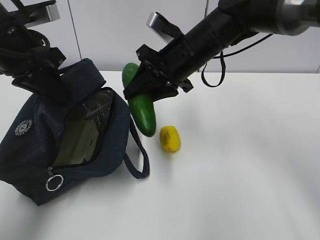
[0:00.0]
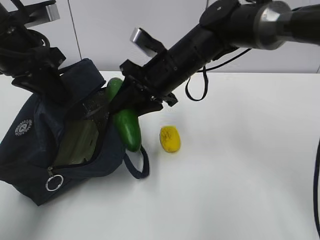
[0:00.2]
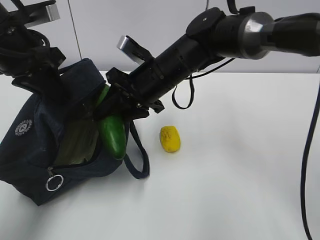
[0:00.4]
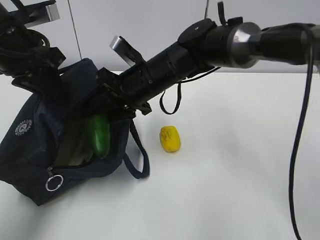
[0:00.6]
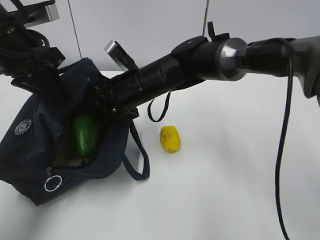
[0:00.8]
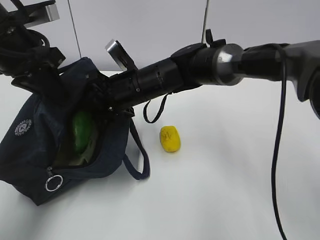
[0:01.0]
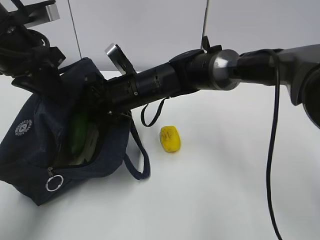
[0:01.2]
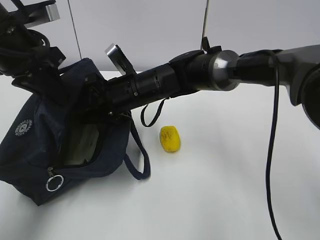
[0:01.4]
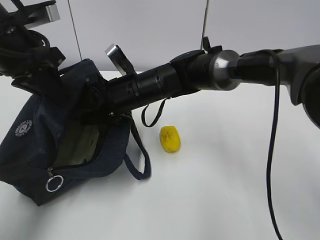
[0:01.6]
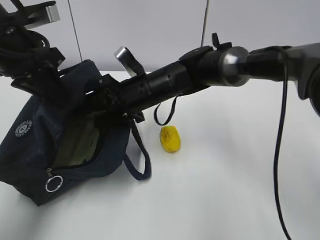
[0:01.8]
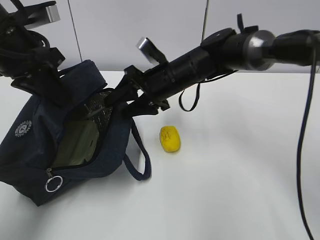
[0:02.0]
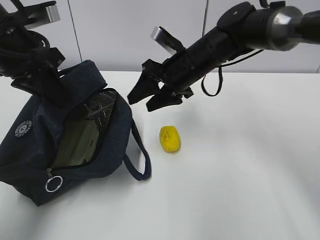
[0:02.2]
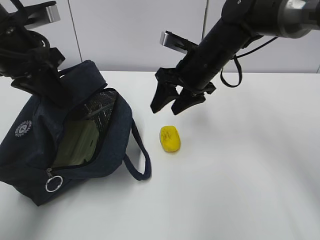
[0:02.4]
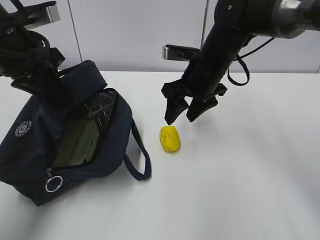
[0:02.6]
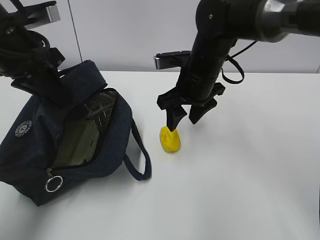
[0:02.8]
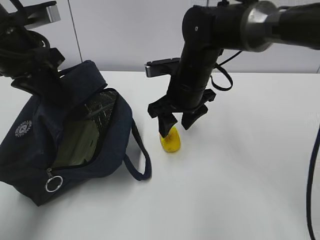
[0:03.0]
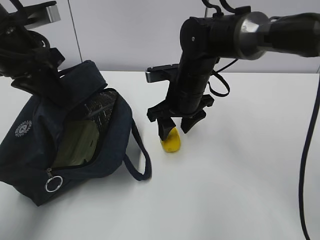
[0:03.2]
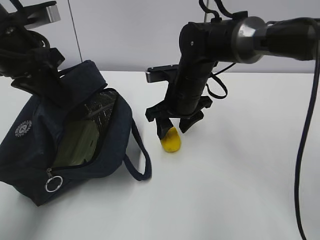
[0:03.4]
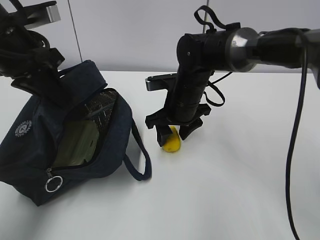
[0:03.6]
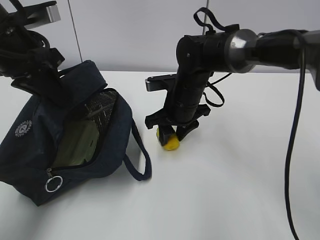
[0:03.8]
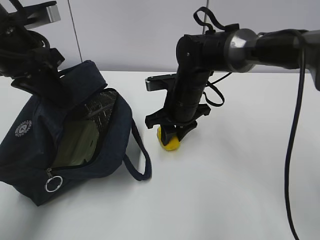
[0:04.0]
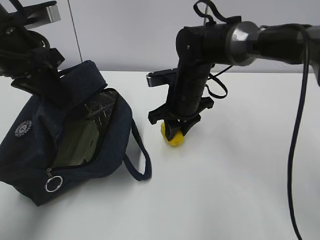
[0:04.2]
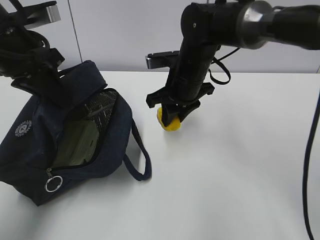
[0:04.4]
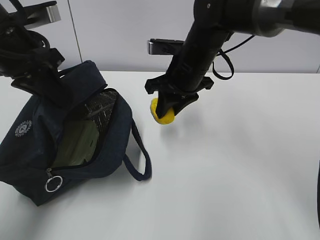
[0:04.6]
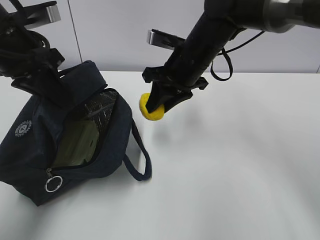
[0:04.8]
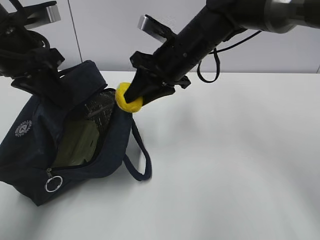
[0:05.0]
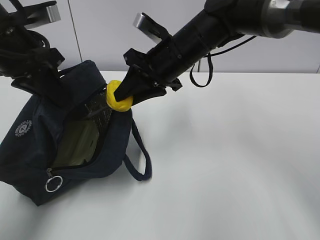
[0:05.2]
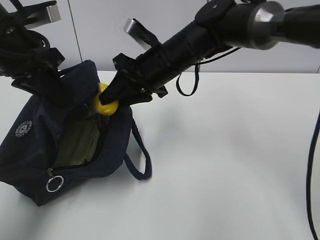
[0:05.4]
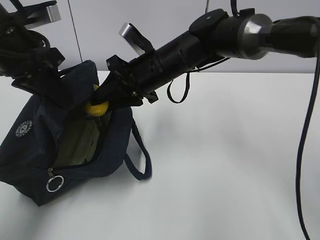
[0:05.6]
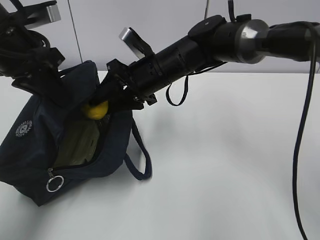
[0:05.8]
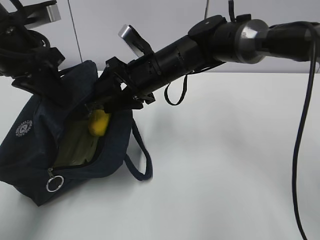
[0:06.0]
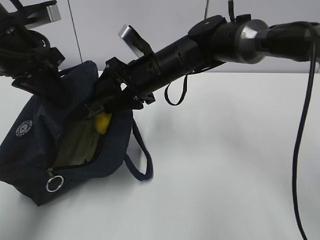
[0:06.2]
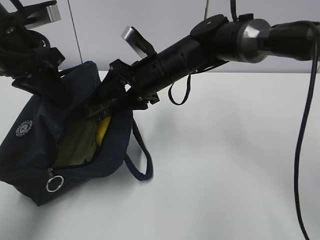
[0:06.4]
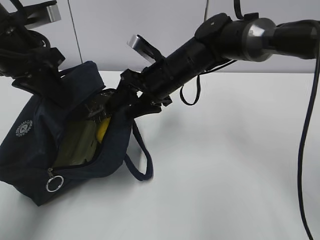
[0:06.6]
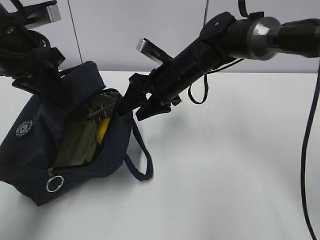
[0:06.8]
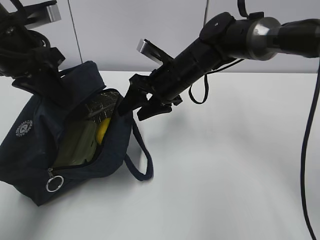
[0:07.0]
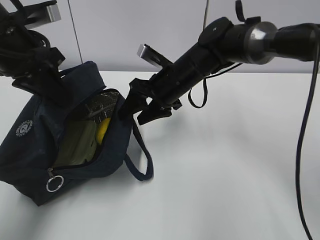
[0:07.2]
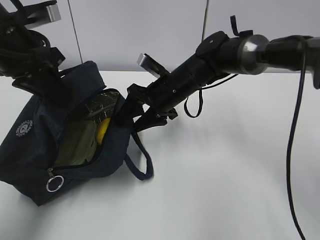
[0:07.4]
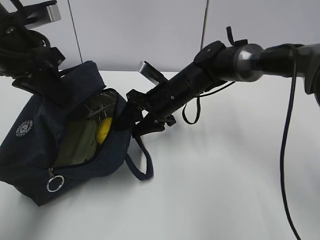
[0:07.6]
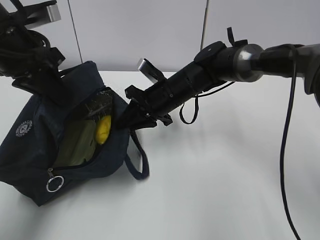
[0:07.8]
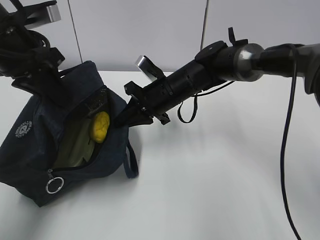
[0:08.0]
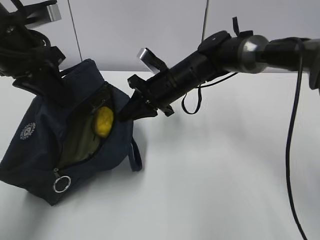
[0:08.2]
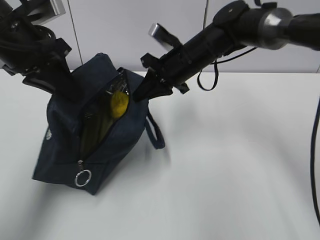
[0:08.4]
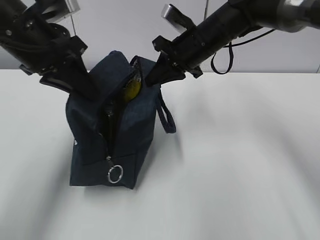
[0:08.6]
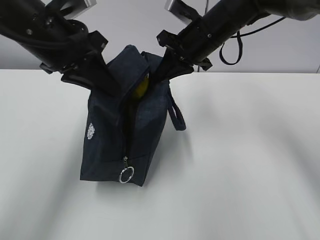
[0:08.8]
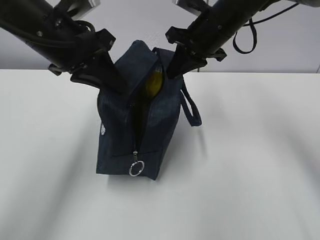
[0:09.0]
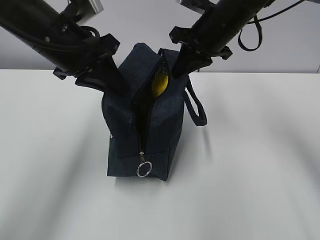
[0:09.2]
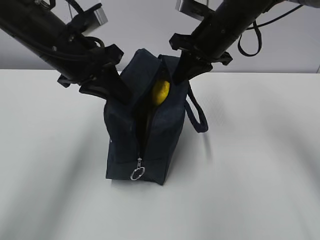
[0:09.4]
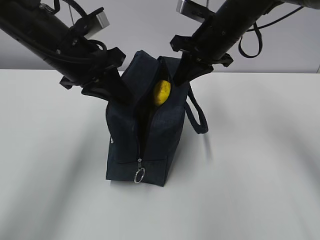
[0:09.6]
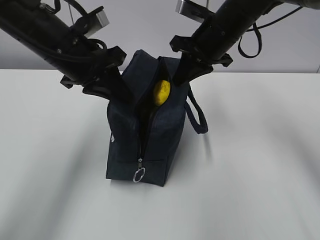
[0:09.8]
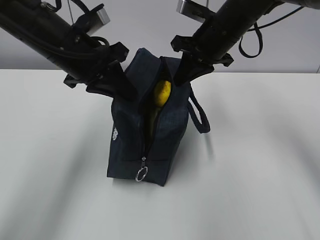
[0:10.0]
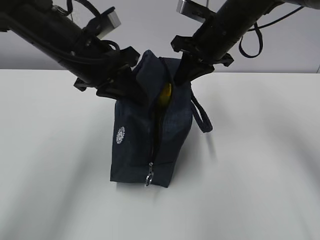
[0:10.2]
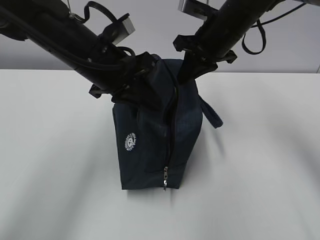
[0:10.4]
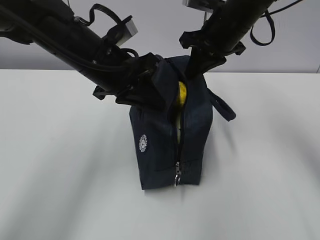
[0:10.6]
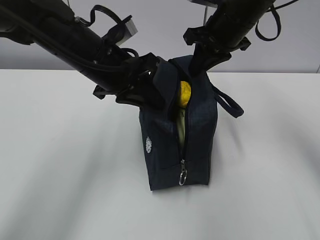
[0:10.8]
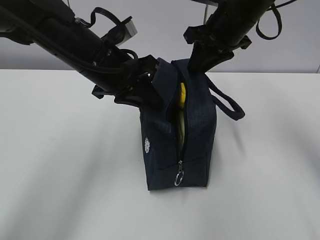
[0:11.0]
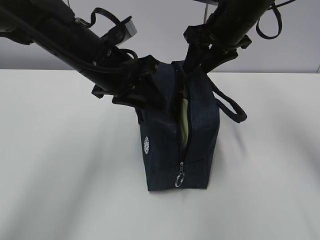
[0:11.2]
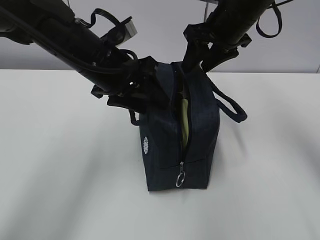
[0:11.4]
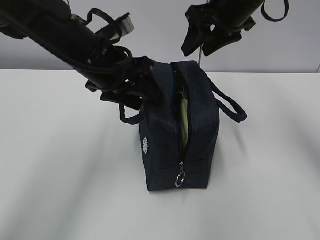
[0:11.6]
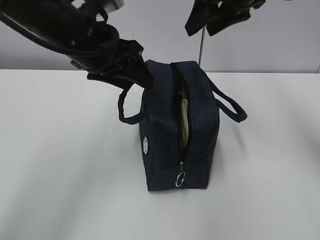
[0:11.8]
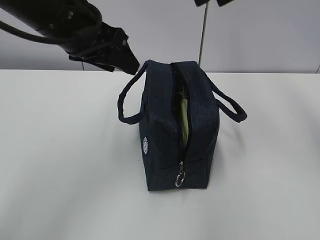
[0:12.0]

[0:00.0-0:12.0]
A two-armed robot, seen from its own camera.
Step, 0:01.6 to 0:02.4: Grab the lunch bag with your right hand.
Step, 0:02.6 to 0:05.2: Move the lunch bag to the right.
0:00.0 to 0:01.6: The right gripper goes approximately 10 cm to the left and downward.
0:01.6 to 0:03.0: The right gripper is displaced to the right by some 10 cm.
0:03.0 to 0:04.4: The right gripper closes up.
0:04.4 to 0:06.0: The right gripper heads to the left, covering approximately 5 cm, and opens up.
0:06.0 to 0:07.6: The right gripper goes about 5 cm downward.
0:07.6 to 0:09.0: The left gripper shifts some 5 cm to the right. Meanwhile the right gripper goes approximately 15 cm upward and to the right, and closes.
0:09.0 to 0:10.4: The left gripper ends up some 5 cm from where it was.
0:10.4 to 0:12.0: The right gripper travels upward and backward by approximately 15 cm, and opens; the left gripper is displaced upward by roughly 5 cm, and opens up.

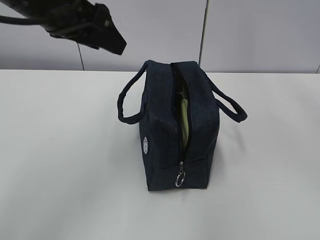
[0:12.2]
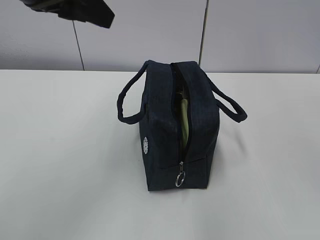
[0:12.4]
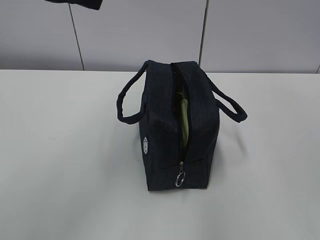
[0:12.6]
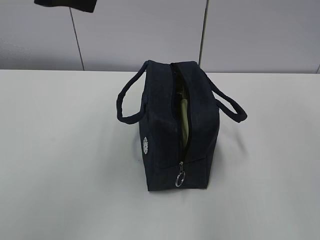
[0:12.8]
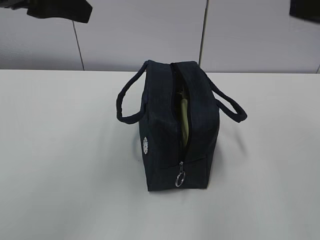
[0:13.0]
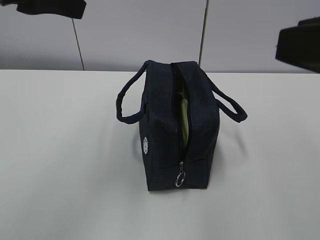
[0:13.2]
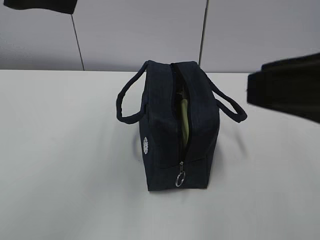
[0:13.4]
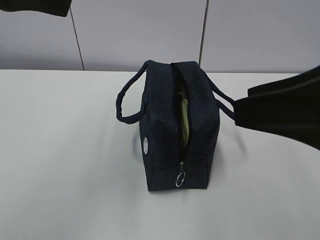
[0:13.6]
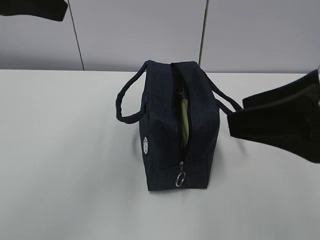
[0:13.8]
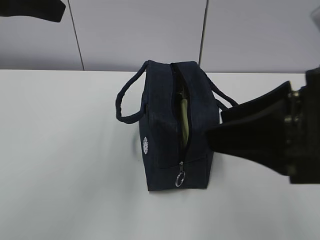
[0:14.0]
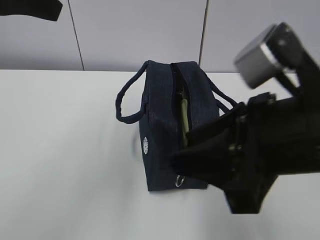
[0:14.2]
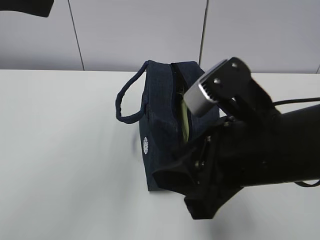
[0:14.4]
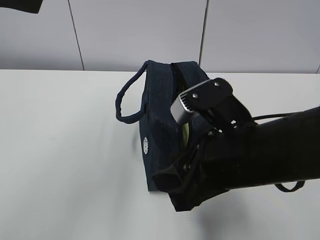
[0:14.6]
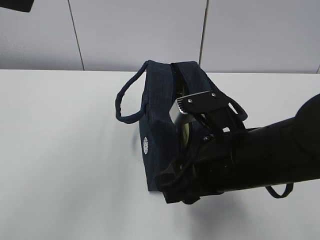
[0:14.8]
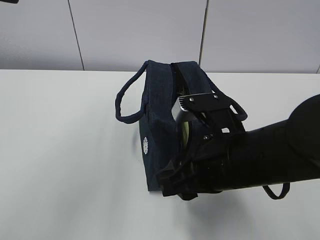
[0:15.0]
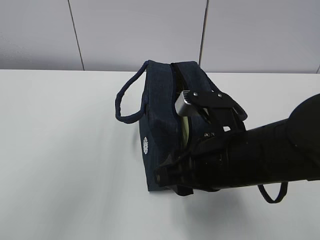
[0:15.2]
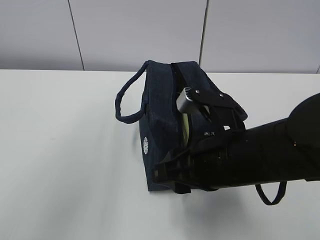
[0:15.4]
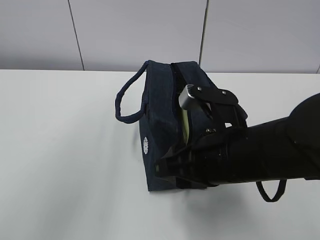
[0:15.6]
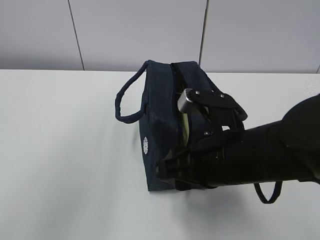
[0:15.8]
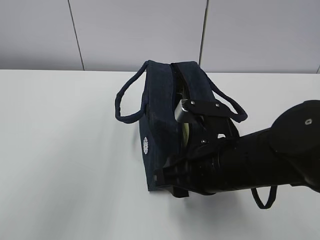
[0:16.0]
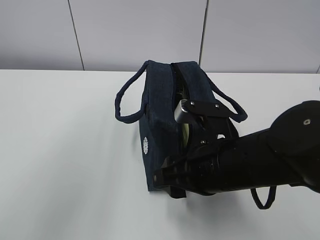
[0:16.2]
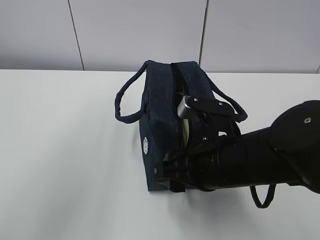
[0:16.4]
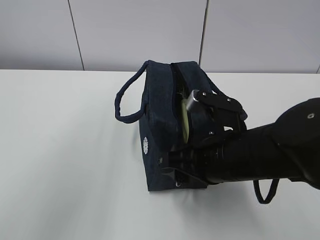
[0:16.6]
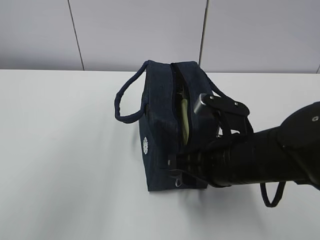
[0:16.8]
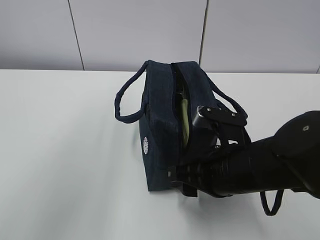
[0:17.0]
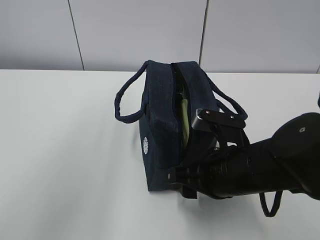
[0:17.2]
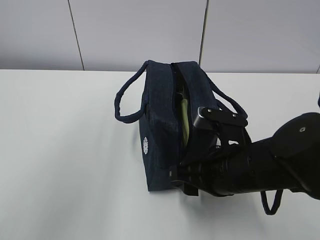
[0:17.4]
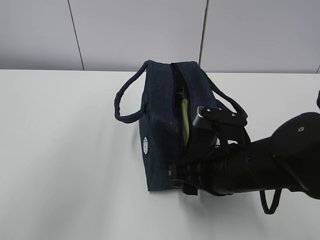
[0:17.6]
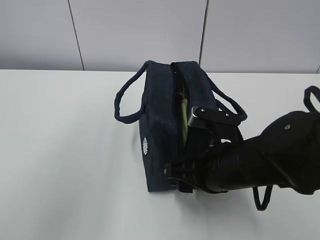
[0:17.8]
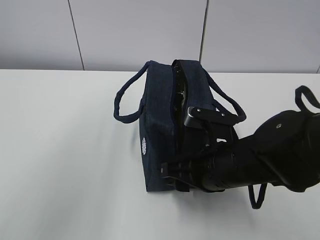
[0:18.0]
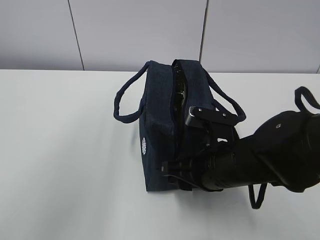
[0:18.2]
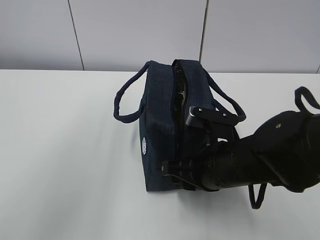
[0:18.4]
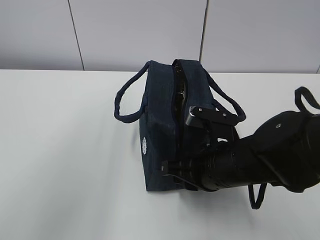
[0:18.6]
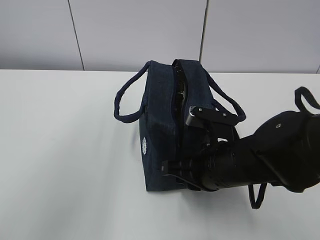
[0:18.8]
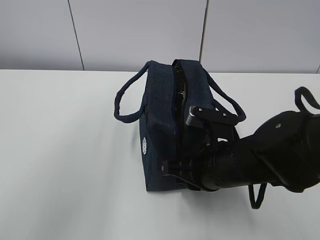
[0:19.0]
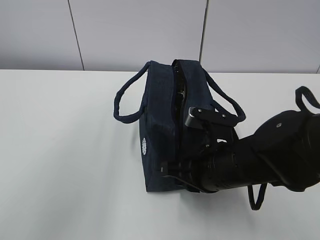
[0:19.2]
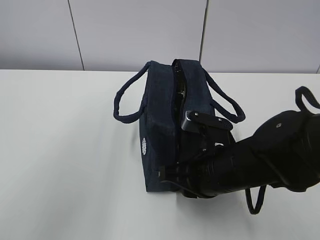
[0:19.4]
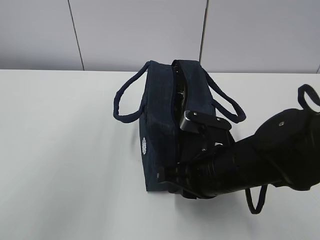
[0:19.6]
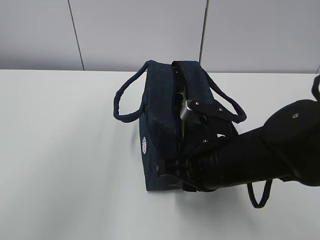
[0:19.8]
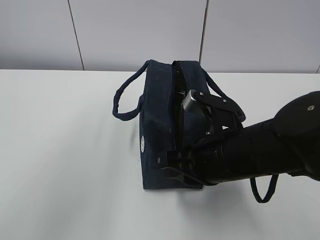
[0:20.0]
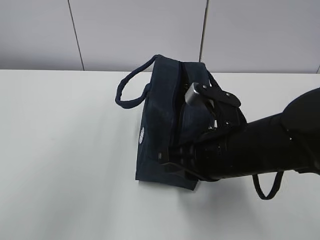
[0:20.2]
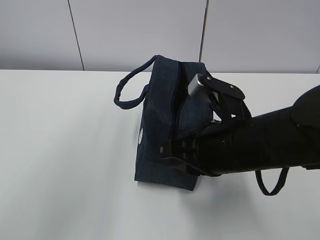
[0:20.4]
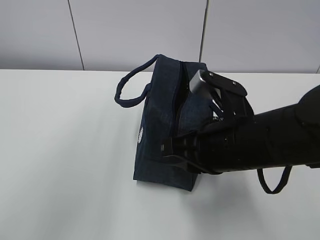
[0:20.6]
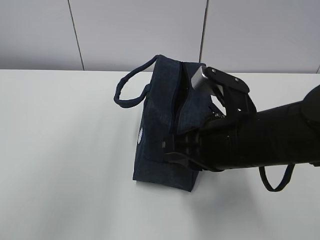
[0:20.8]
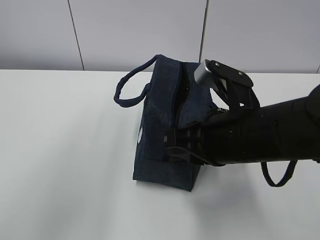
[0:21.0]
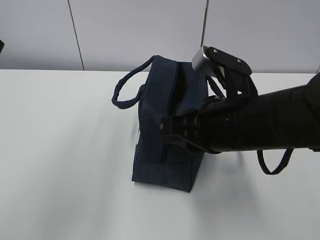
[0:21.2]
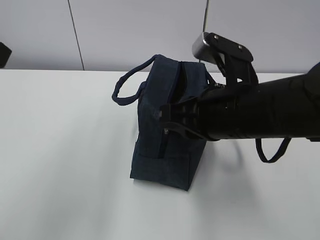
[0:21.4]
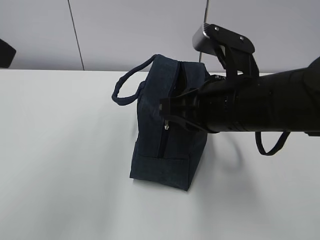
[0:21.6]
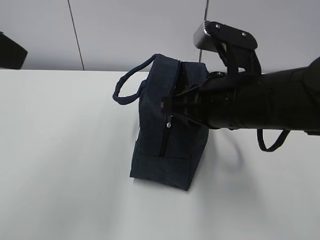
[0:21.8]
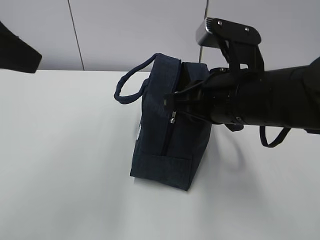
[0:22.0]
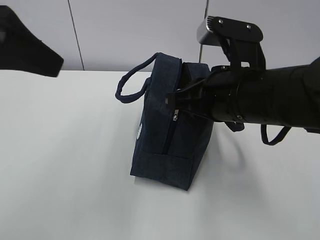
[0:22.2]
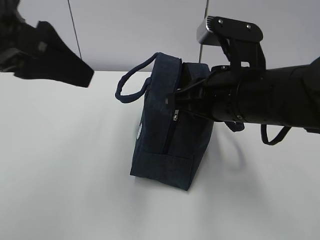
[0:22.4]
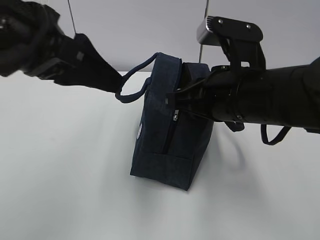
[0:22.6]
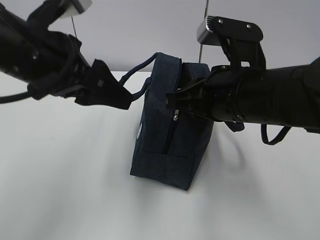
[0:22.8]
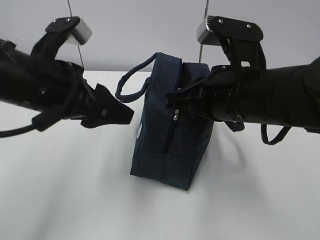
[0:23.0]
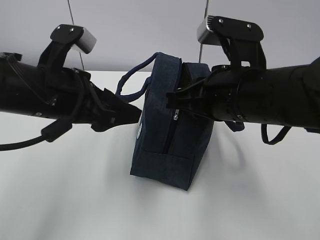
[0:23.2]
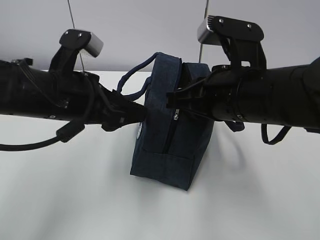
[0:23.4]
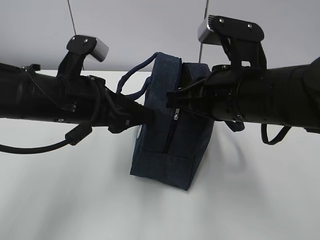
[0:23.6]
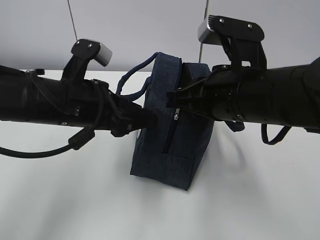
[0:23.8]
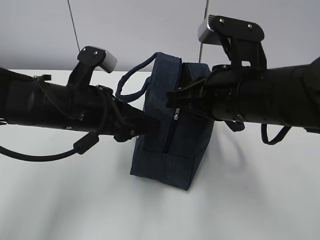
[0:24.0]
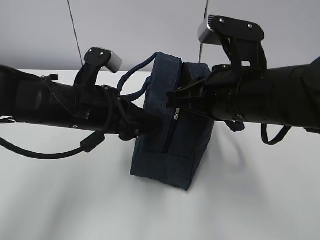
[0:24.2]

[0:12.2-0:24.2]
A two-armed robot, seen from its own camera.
Step, 0:12.2 to 0:19.6: Grab the lunch bag with your left hand.
0:12.2 to 0:13.8: The left gripper heads backward and upward, covering about 10 cm. Meanwhile the right gripper is displaced backward and downward by some 20 cm.
0:13.8 to 0:15.2: The right gripper heads downward, to the left and forward, covering some 15 cm; the left gripper shifts by roughly 5 cm.
0:15.2 to 0:16.6: The grippers stay close to where they were, moving slightly.
0:16.6 to 0:18.2: There are only small adjustments of the grippers.
0:18.2 to 0:19.8: The right gripper closes.
0:19.8 to 0:21.2: The right gripper shifts approximately 5 cm upward.
0:21.2 to 0:22.6: The left gripper goes about 10 cm to the right, downward and forward.
0:22.6 to 0:24.2: The left gripper travels downward by approximately 15 cm.
